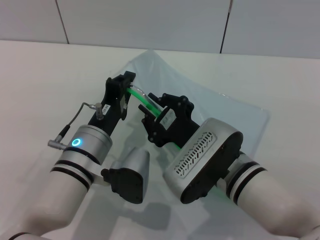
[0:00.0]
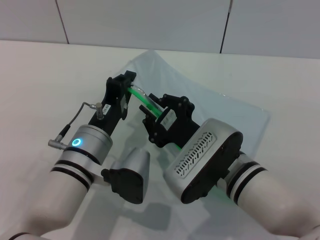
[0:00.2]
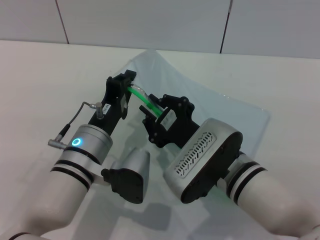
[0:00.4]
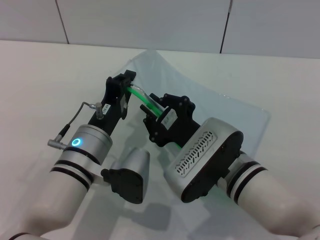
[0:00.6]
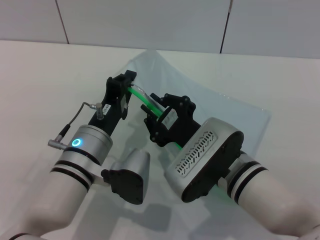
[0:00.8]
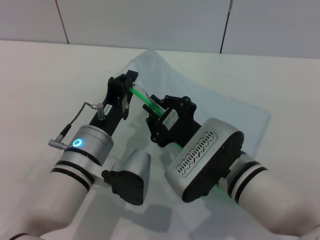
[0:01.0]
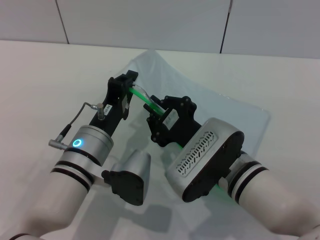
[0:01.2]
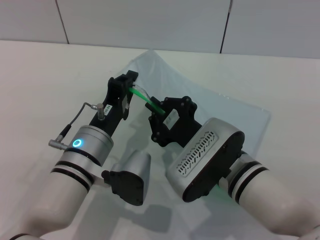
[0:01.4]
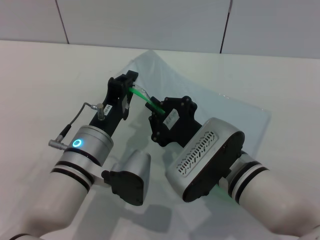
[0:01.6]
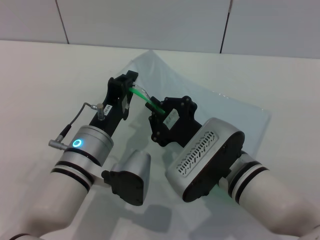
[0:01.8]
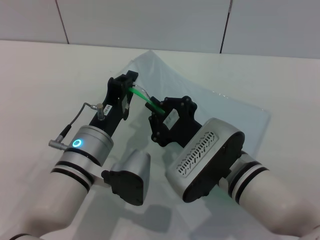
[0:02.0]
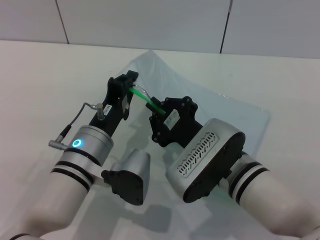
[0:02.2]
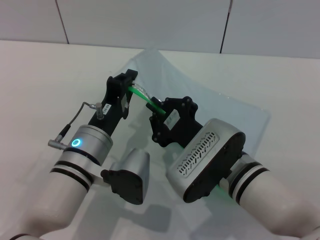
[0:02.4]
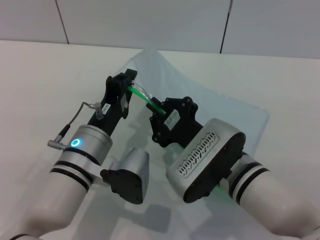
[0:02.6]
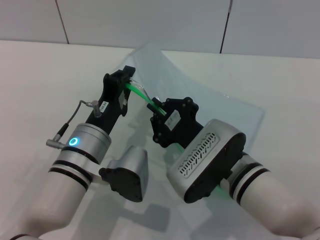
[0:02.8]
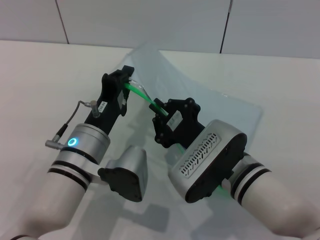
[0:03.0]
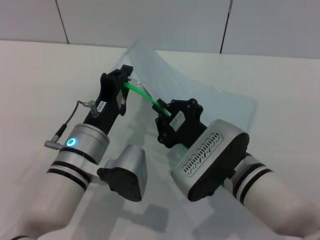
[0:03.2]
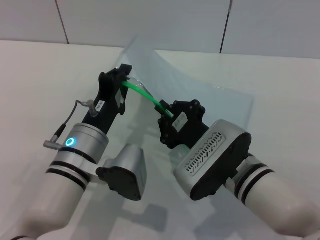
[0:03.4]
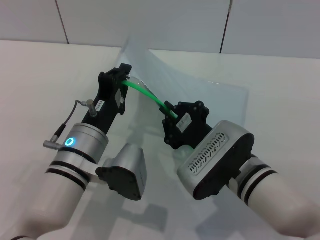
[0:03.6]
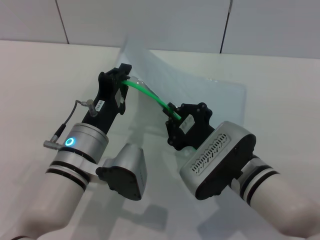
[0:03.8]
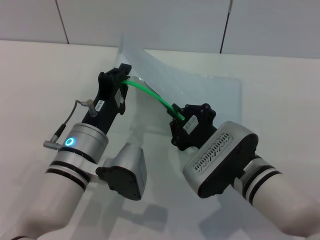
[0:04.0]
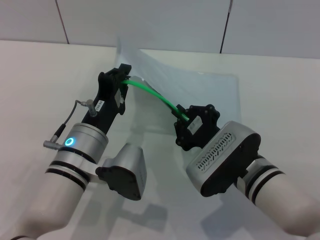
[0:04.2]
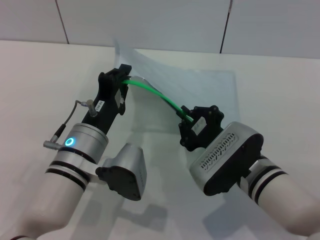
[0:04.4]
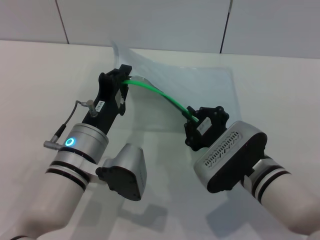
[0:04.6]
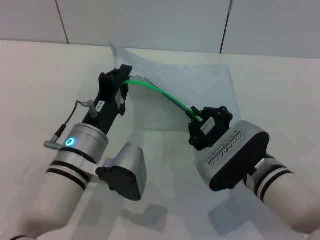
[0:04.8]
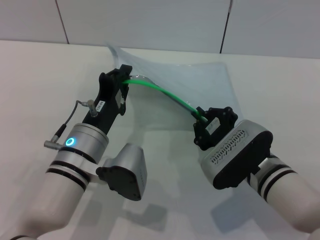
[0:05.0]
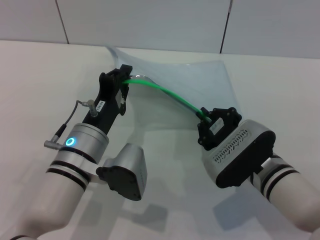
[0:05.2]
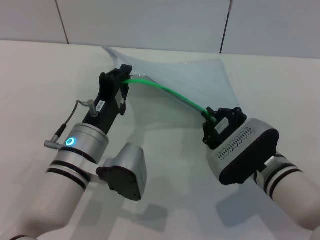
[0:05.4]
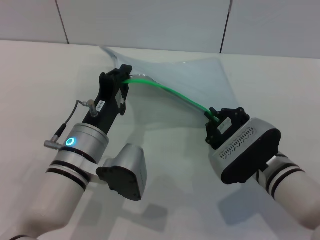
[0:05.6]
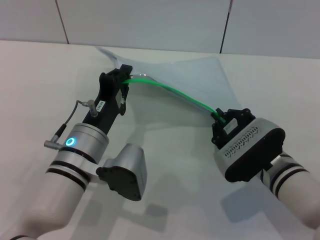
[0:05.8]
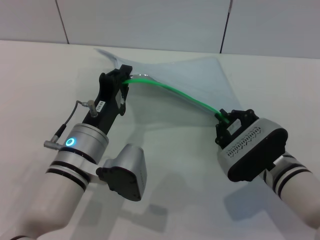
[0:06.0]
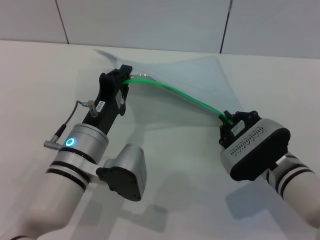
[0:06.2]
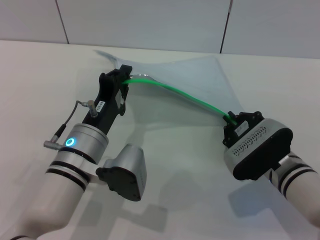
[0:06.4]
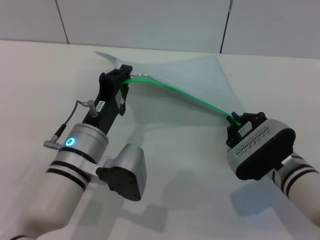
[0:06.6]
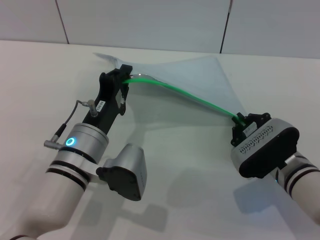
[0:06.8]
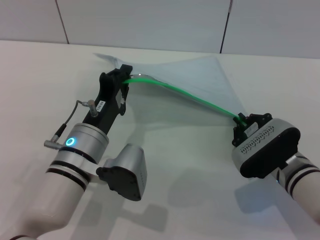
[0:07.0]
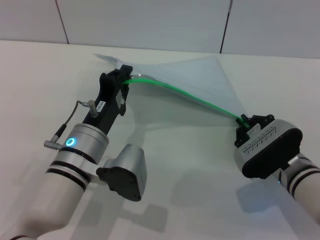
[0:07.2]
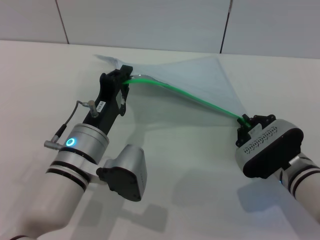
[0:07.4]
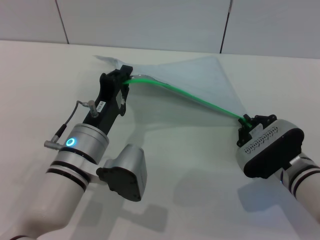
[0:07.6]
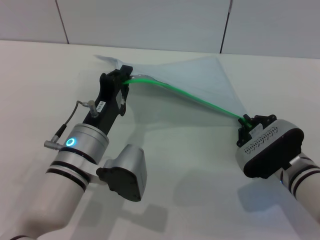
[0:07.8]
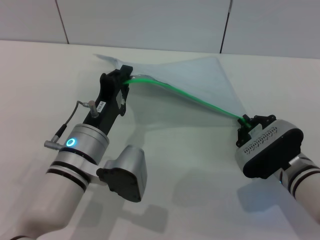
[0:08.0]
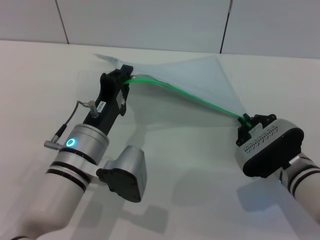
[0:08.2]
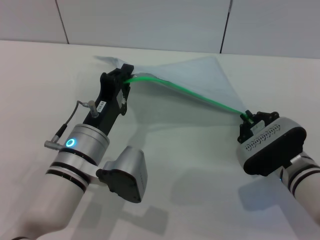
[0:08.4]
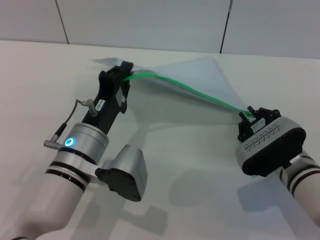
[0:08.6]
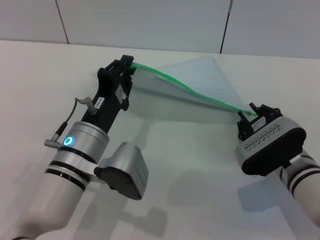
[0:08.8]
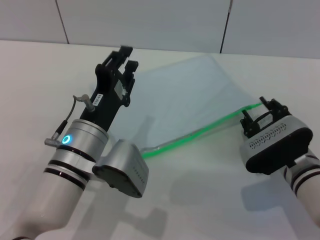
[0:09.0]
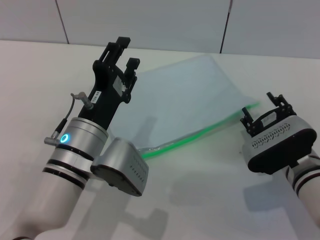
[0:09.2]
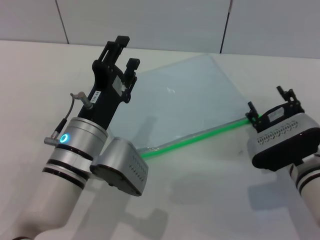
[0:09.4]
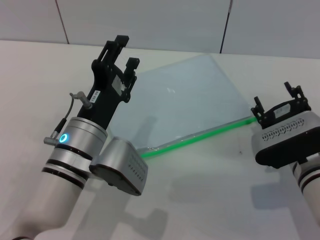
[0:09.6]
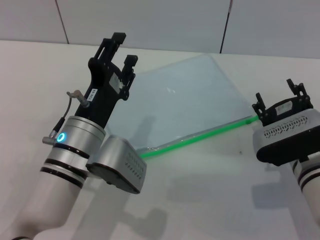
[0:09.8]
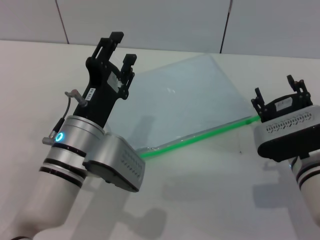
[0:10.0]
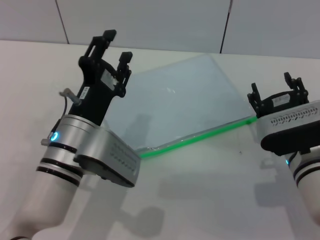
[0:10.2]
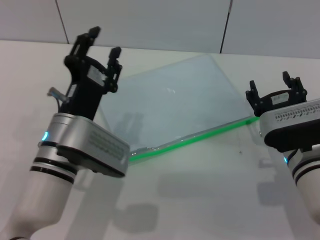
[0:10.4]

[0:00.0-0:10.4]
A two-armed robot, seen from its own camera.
Step, 0:00.0 to 0:09.0: Pulling up the zipper on the transparent plastic bag with the right gripper to close it.
Step, 0:09.2 to 0:10.0: Place the transparent plastic bag.
0:00.0 to 0:03.0: Both grippers stay put.
0:03.0 to 0:04.4: There are only small adjustments of the grippers.
0:04.4 to 0:06.0: The right gripper ends up about 5 cm from where it was.
0:06.0 to 0:07.4: The grippers make only small movements.
0:07.4 to 0:09.0: The right gripper opens.
0:09.0 to 0:10.4: The right gripper opens, while the left gripper opens its fingers.
